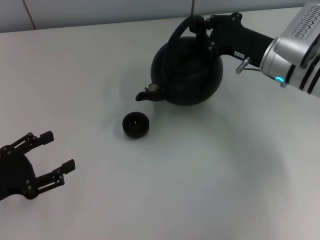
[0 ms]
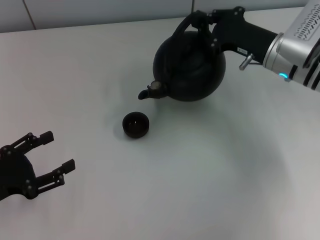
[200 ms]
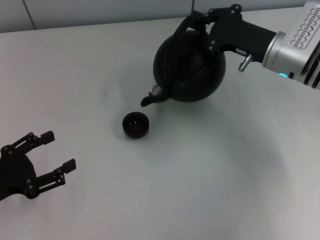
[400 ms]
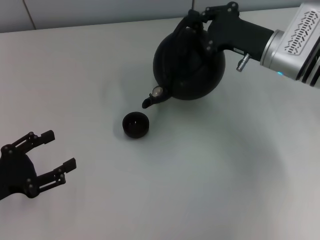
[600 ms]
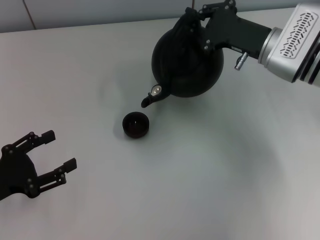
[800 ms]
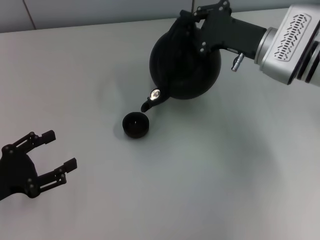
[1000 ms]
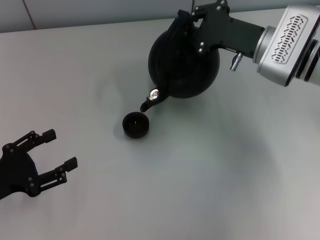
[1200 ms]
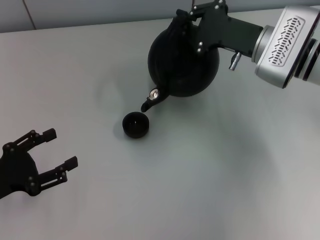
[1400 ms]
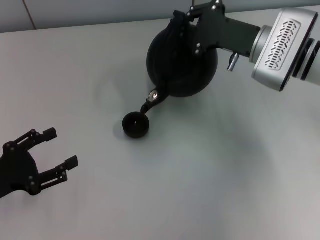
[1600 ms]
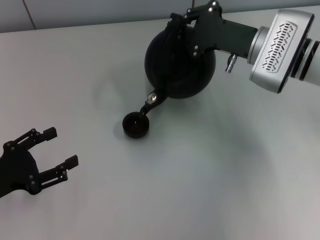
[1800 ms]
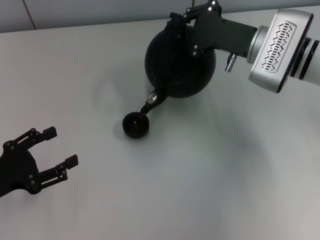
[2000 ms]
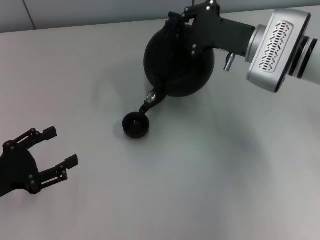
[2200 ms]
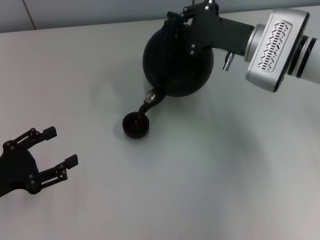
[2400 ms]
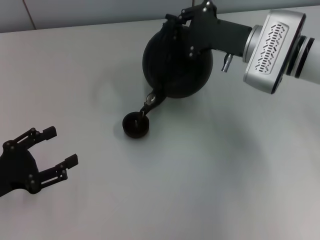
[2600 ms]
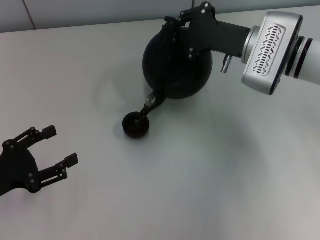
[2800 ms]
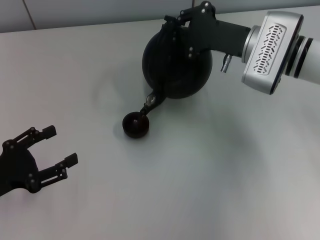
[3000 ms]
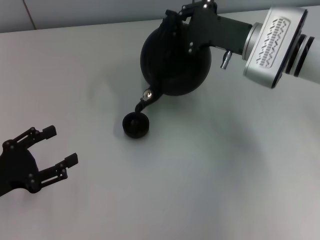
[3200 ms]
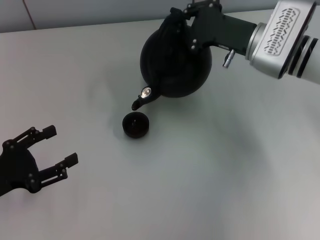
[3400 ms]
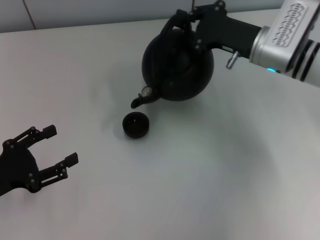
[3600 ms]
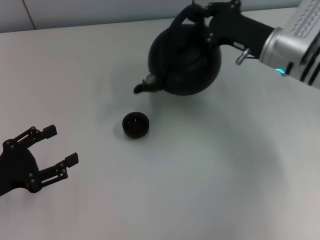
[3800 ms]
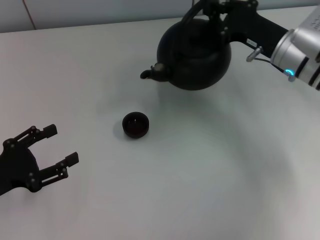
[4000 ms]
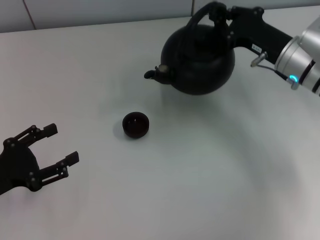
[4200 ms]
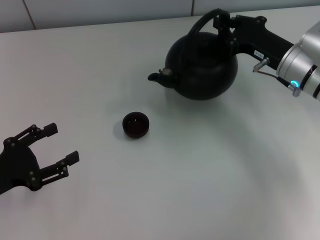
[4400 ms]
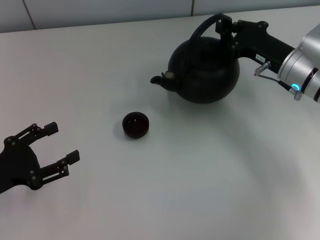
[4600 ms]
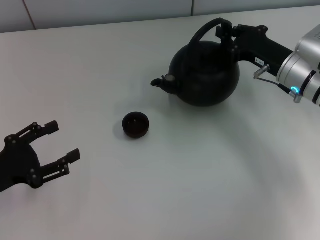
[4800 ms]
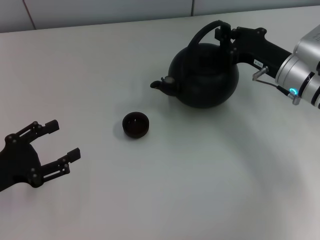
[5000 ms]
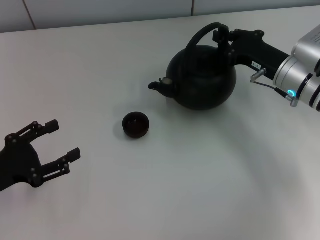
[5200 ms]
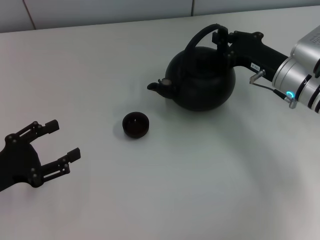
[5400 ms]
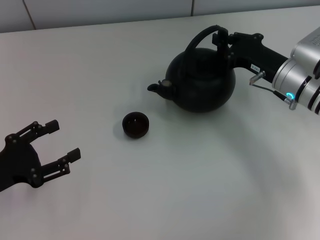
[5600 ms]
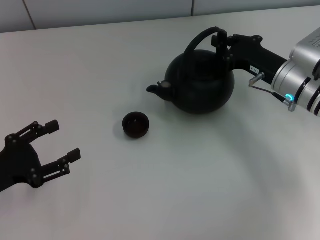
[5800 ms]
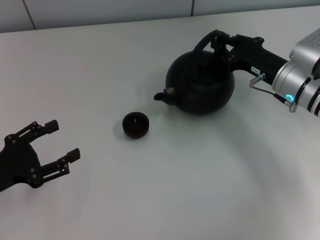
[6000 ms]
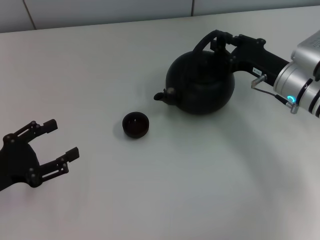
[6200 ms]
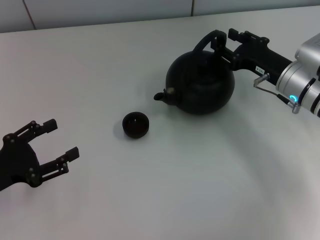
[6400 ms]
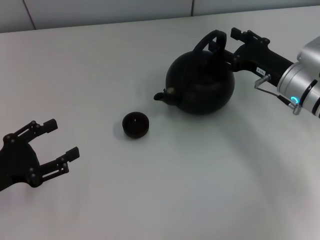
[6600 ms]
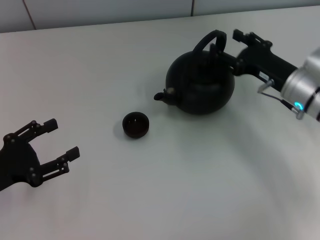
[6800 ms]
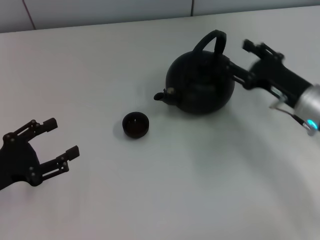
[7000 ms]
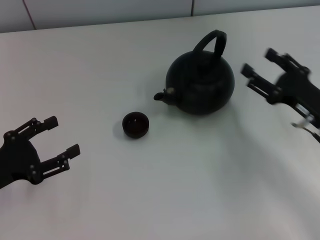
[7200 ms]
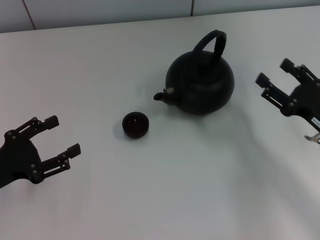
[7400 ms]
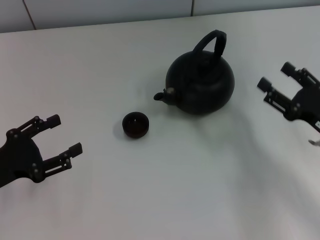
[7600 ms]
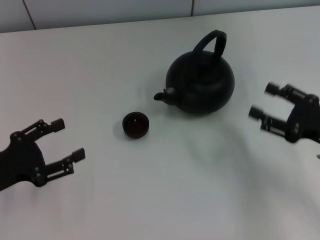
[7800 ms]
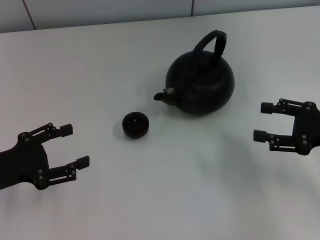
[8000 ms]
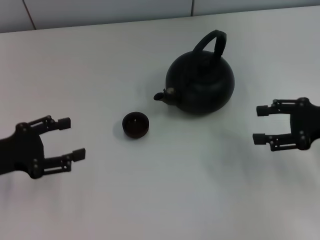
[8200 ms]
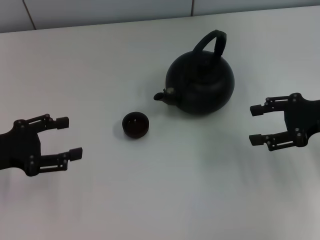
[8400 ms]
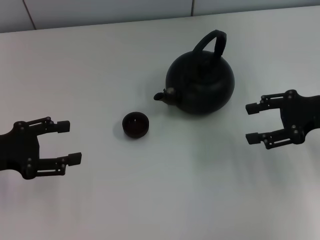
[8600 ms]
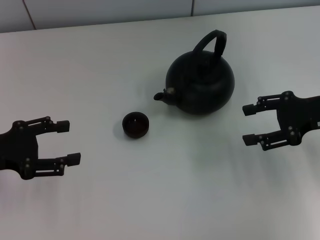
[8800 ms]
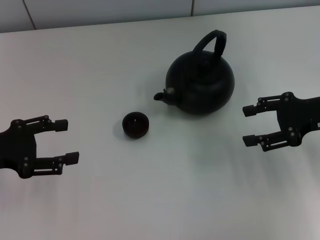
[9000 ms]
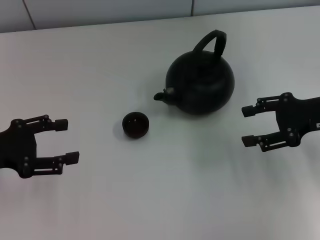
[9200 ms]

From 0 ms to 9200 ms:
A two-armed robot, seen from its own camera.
Task of the whole recording: Grasp the handle of the teapot with one hand and pour tea into the teacup.
Step, from 3800 ms to 7000 ms: Put down the teapot with the right gripper.
From 1600 ms to 3000 ms: The grippers stay close to where they were, moving slightly.
From 3000 ms to 4600 ms: The right gripper heads to the right, covering roughly 5 cm.
From 4600 ms to 6200 ms: The grippers move only a little.
From 6200 ms to 7600 ms: The right gripper travels backward and to the right by some 15 cm, and opens up.
From 7600 ms to 9200 ms: The left gripper changes place by roughly 5 cm, while the right gripper is displaced upward and forward by some 10 cm.

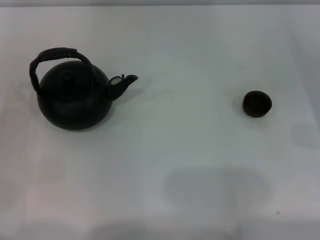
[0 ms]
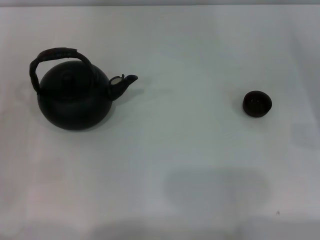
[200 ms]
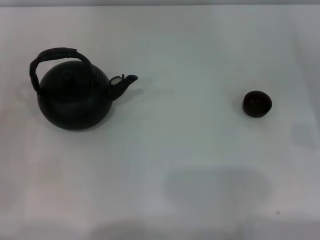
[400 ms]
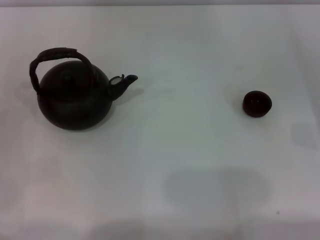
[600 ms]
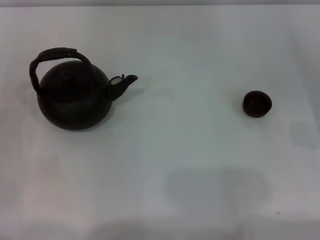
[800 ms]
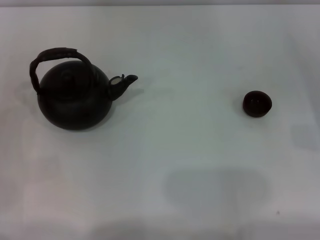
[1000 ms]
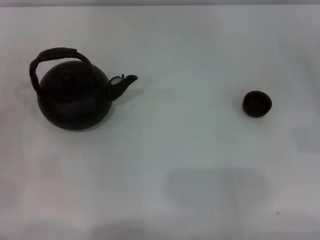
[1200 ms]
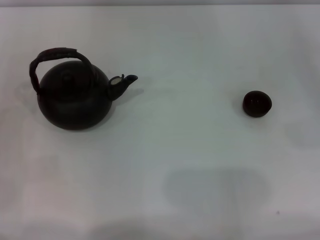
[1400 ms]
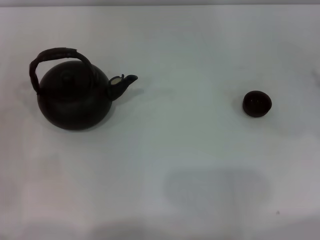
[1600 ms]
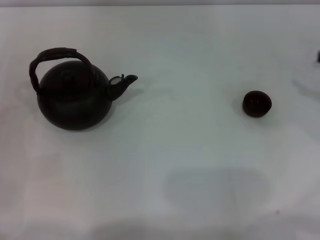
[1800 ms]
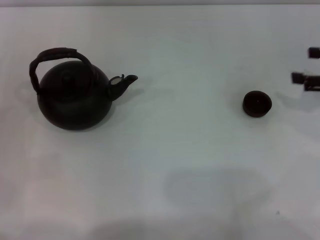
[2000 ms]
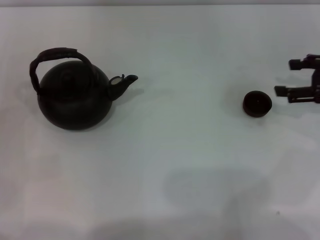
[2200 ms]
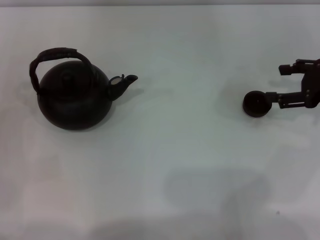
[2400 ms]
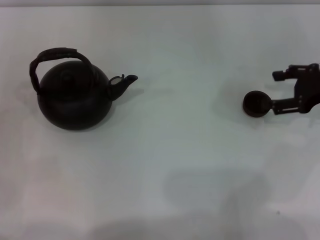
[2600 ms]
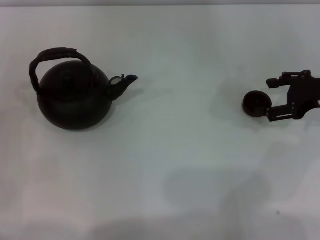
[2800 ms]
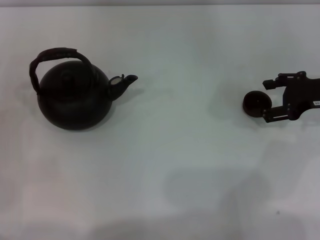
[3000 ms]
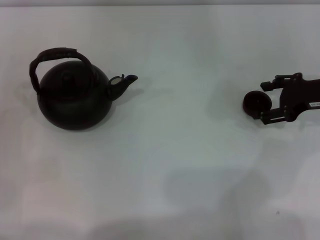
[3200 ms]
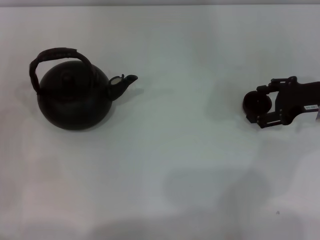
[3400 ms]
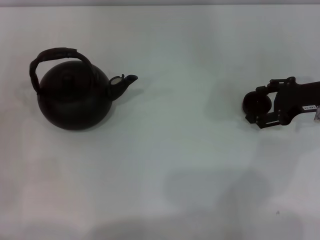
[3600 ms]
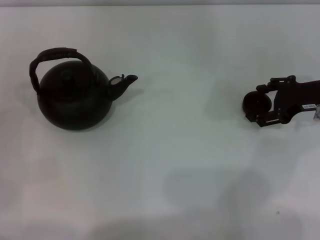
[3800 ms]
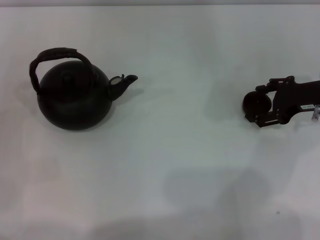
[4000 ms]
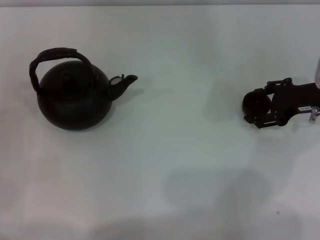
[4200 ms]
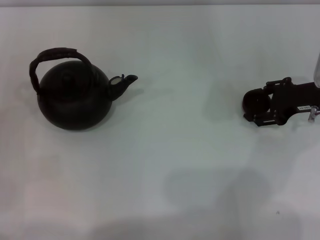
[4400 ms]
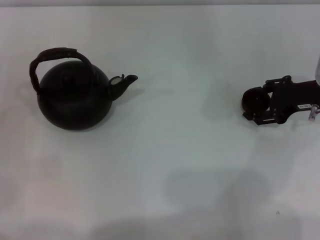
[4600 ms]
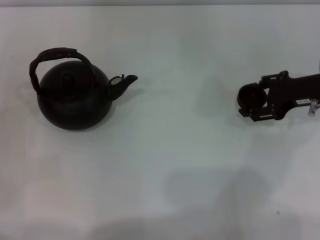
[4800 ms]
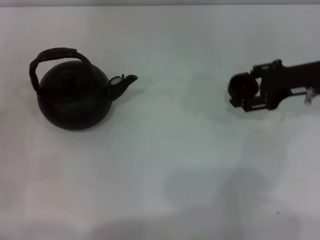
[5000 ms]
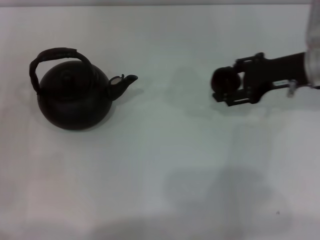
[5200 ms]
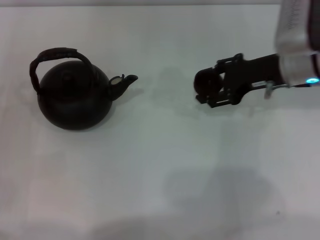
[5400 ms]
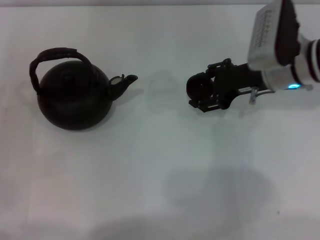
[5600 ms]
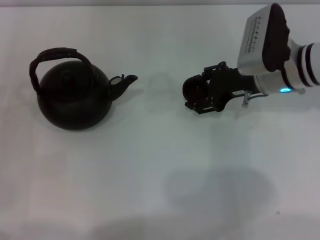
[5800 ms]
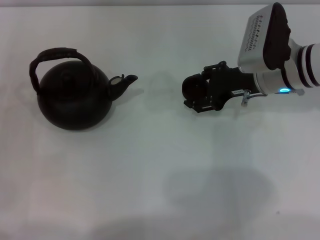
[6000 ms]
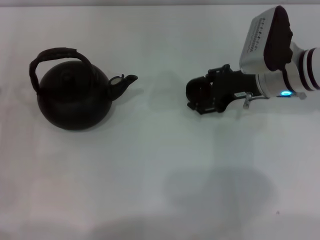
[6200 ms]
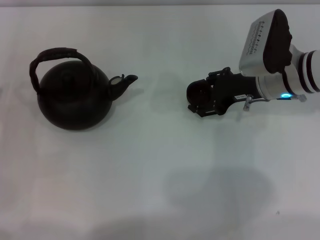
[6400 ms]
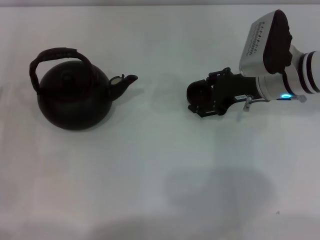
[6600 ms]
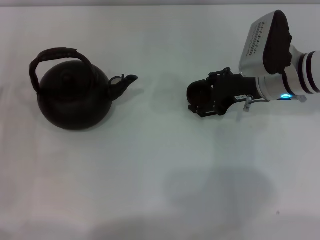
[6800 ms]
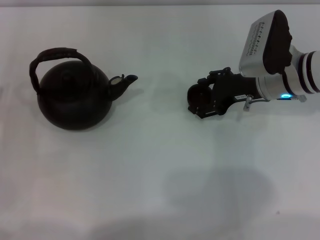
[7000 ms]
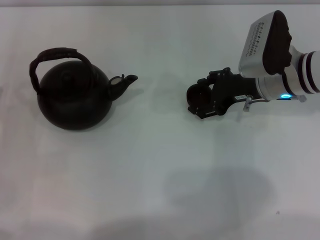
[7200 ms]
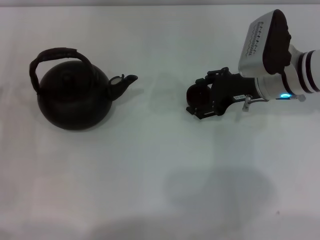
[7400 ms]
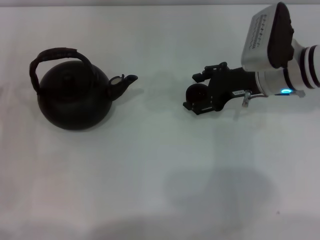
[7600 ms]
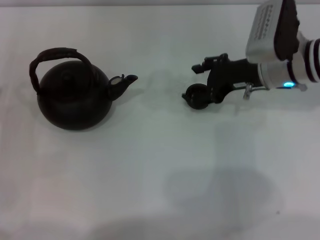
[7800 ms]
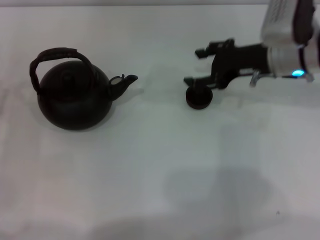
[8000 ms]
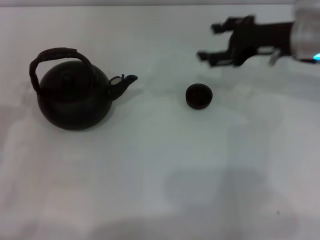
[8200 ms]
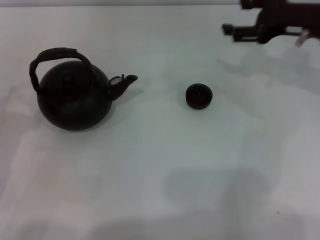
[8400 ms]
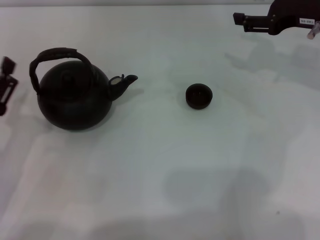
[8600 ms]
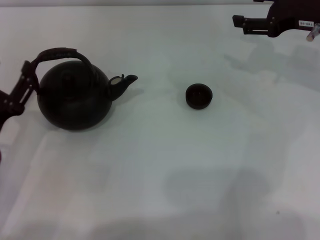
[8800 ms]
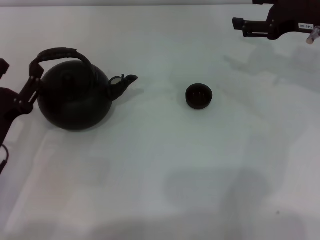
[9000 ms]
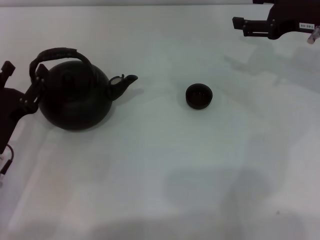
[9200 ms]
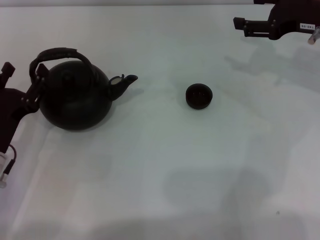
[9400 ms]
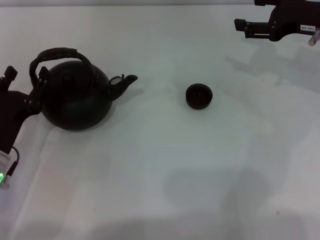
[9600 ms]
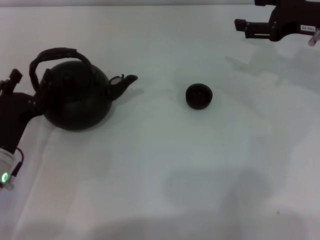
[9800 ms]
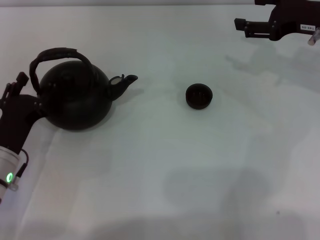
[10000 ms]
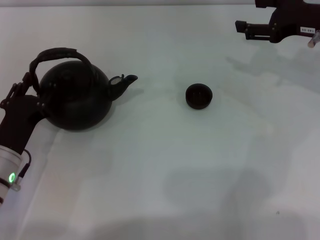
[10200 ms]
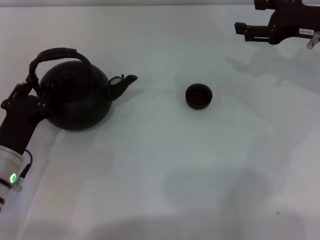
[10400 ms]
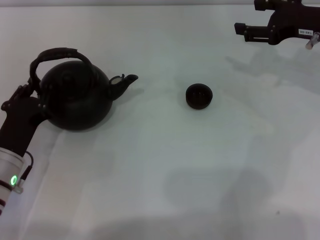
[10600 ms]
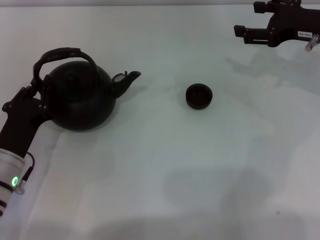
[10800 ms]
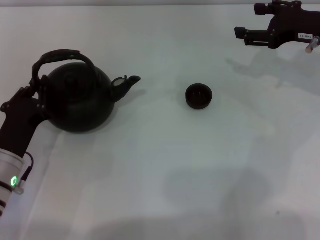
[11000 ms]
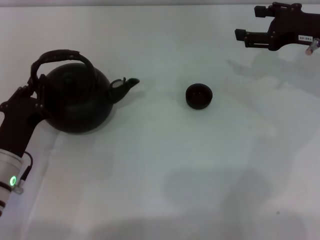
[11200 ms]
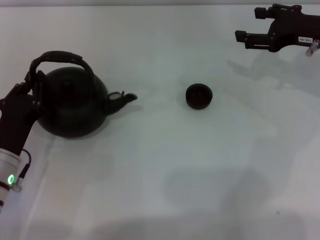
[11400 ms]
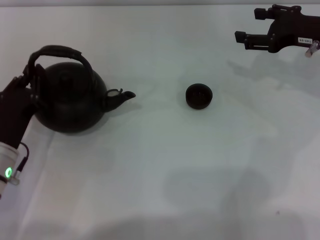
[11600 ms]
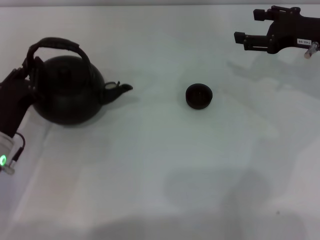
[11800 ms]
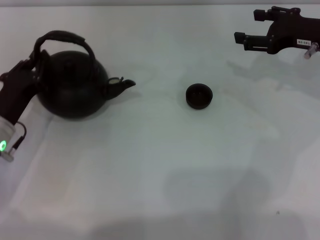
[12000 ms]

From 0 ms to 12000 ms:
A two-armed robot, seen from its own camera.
Task of the whole recording: Grasp the handle of the teapot with one hand and pour tea into the teacup.
Step, from 0 ms to 4800 ms: Pick up the teacup with the right gripper.
Step, from 5000 ms to 8000 ms: Place the teacup in the center of view with the right gripper.
From 1600 ms to 3000 ms: The right gripper heads to the left and forward, covering about 10 cm.
From 3000 ms to 4400 ms: The right gripper closes its fingers.
From 4400 ms to 6000 ms: The right gripper goes roughly 10 cm to the left, and closes up.
From 6000 ms to 7600 ms: The right gripper opens up.
From 7600 ms to 9000 ms: The right gripper travels to the right and upward by approximately 10 cm. Meanwhile the left gripper travels to the right by about 5 cm.
From 9000 ms to 10400 ms: The left gripper closes up.
From 10400 ms to 12000 ms: The left gripper shifts by some 5 cm, and closes.

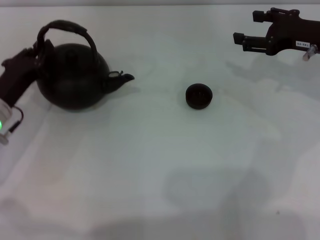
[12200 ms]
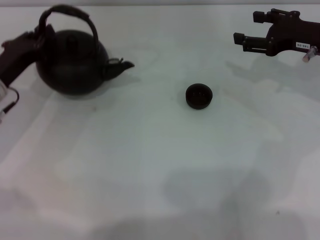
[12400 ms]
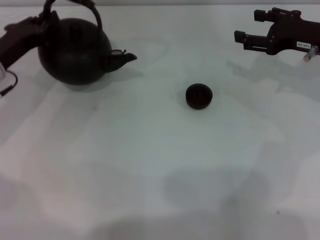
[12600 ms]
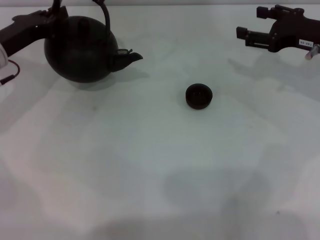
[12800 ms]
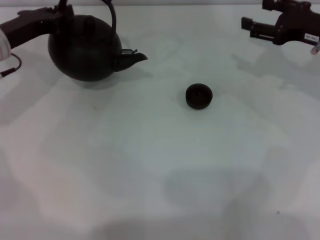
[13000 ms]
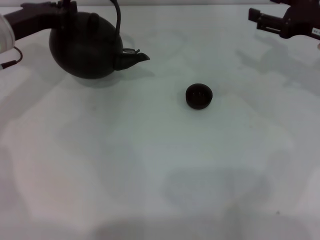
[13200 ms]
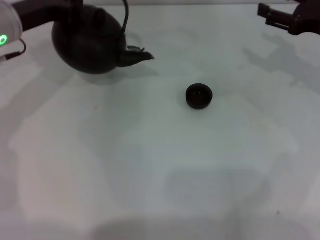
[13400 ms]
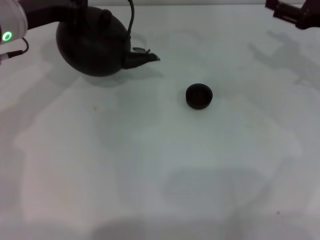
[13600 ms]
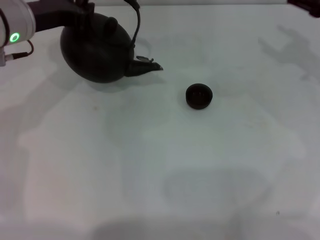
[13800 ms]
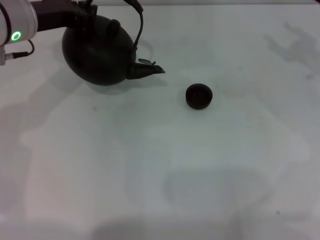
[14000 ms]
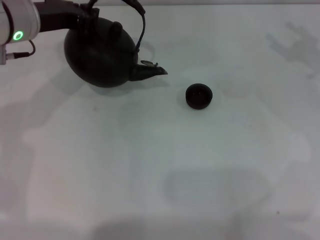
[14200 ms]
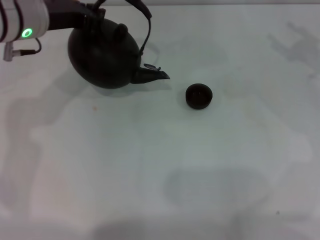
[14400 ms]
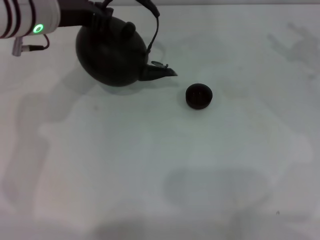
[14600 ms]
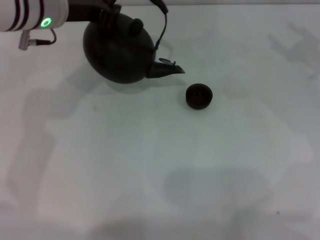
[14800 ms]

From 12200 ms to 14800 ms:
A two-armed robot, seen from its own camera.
Task of the whole recording: Grasp the handle of the teapot with one hand and pour tea into the teacup.
From 12200 ms to 13400 ms: The left gripper travels upward and forward by approximately 15 cm.
From 13400 ms to 14800 ms: The left gripper moves to the right, some 5 cm.
